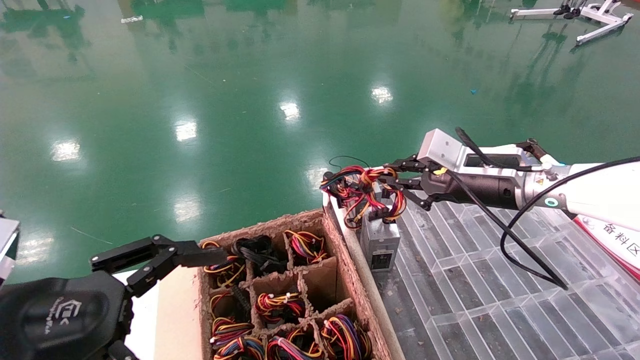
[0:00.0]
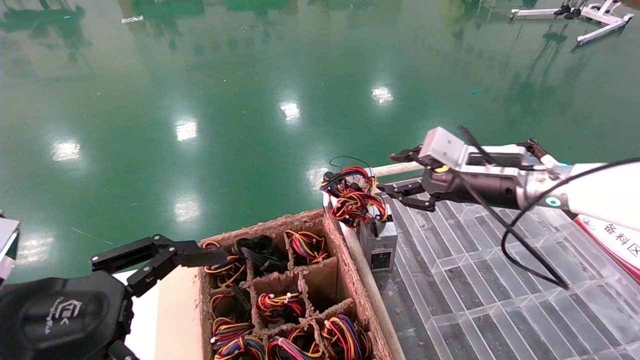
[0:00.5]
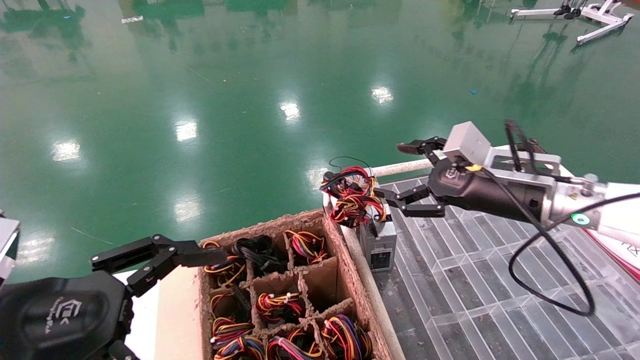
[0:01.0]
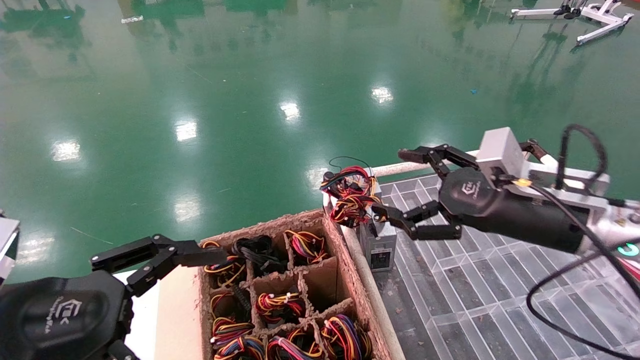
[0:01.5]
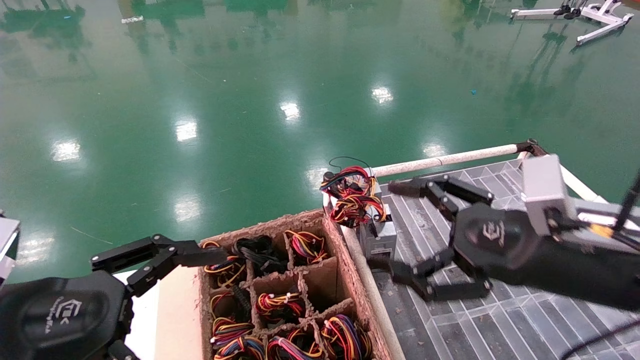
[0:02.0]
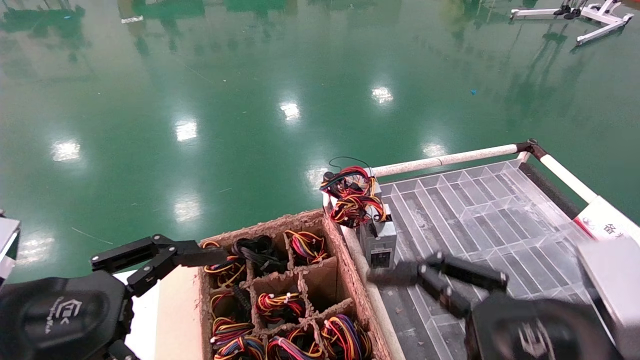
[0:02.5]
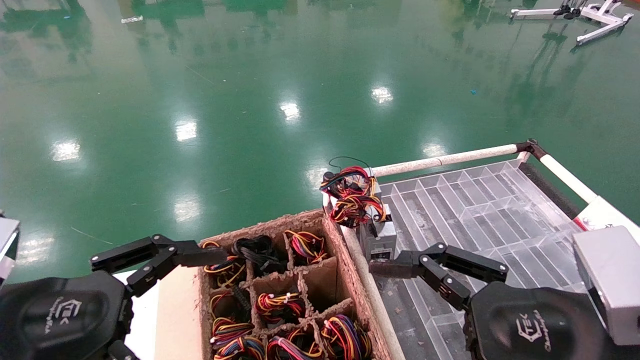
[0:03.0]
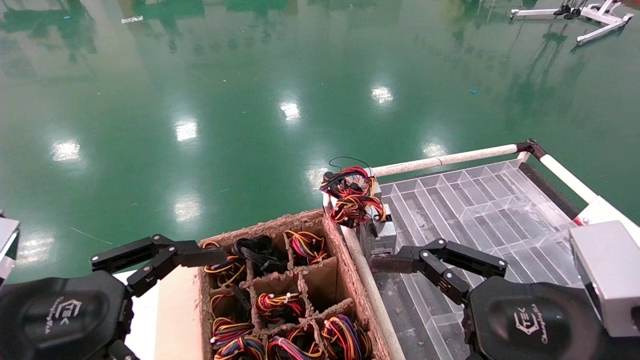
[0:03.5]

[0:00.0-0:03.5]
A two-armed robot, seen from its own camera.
0:00.0 to 0:02.0: The right gripper shifts roughly 15 cm backward, and opens.
0:02.0 to 0:03.5: The right gripper goes approximately 5 cm backward.
